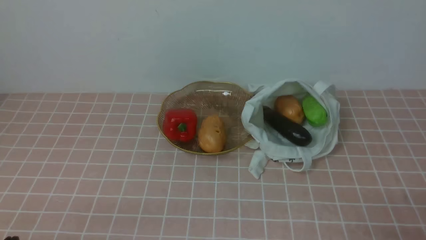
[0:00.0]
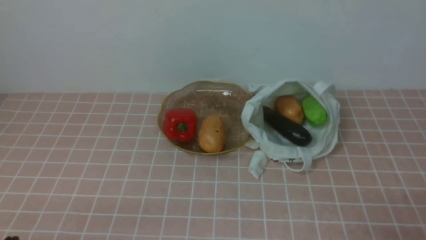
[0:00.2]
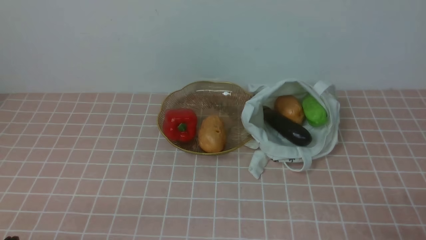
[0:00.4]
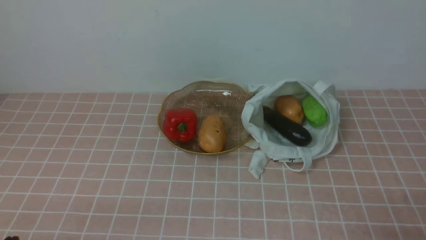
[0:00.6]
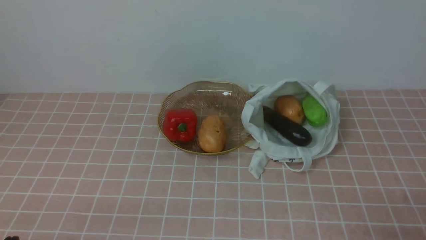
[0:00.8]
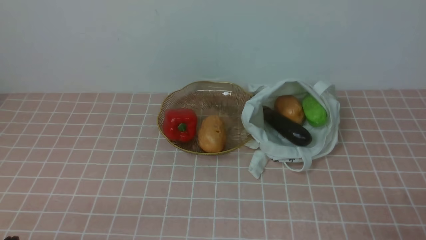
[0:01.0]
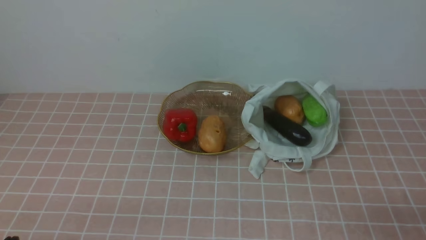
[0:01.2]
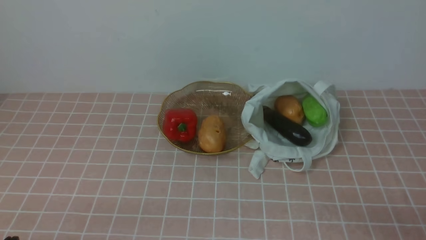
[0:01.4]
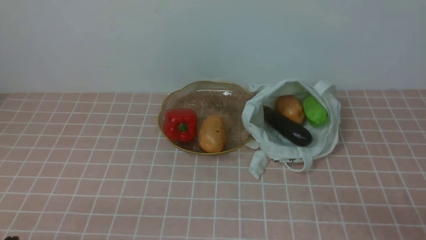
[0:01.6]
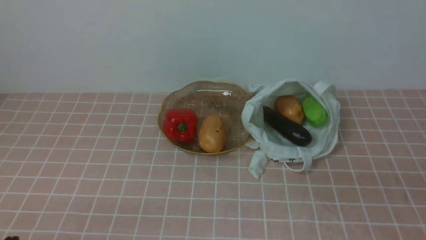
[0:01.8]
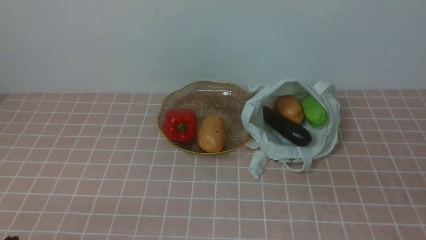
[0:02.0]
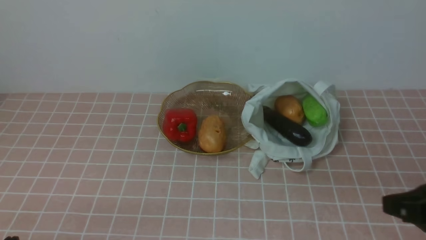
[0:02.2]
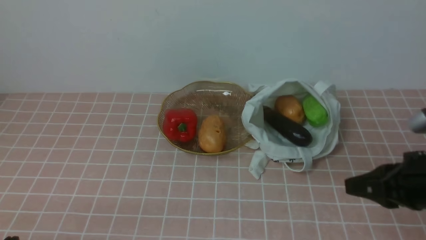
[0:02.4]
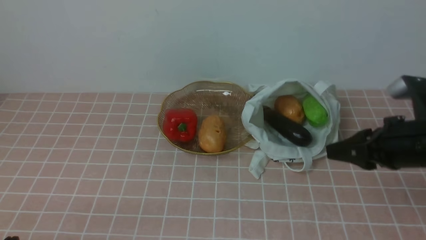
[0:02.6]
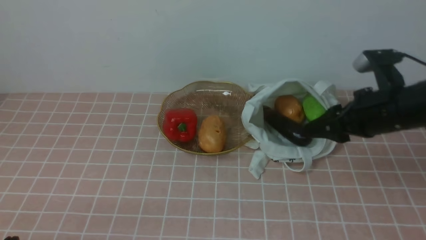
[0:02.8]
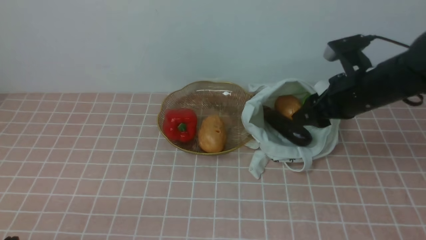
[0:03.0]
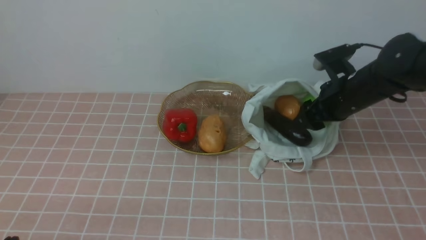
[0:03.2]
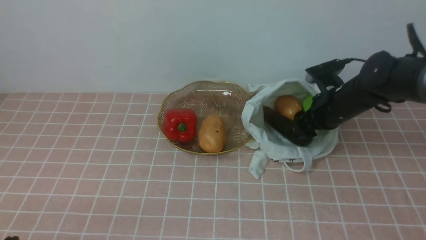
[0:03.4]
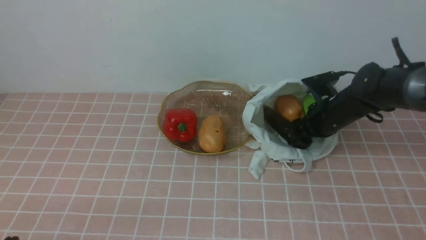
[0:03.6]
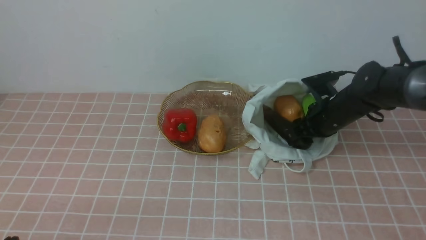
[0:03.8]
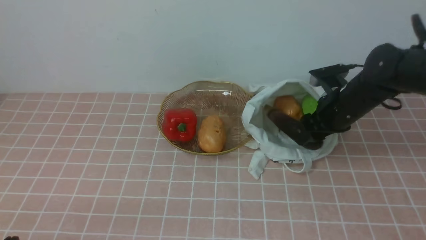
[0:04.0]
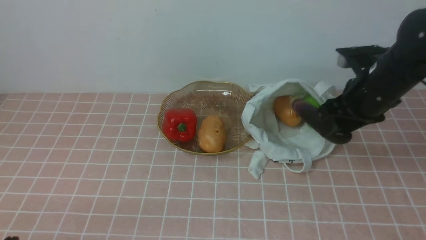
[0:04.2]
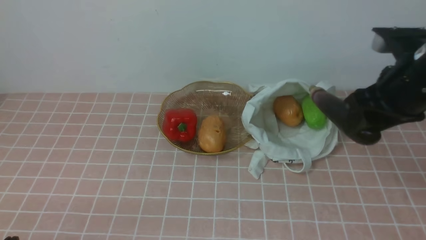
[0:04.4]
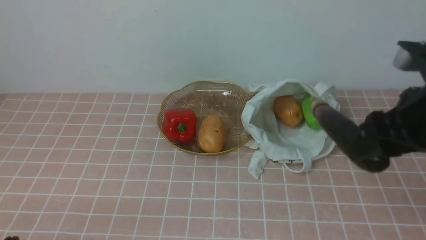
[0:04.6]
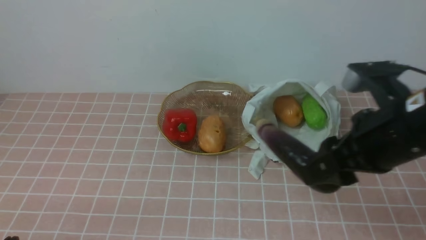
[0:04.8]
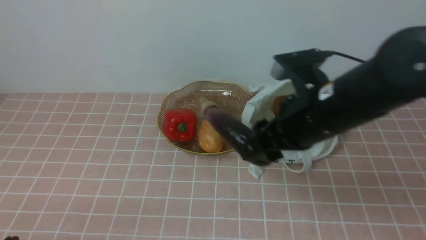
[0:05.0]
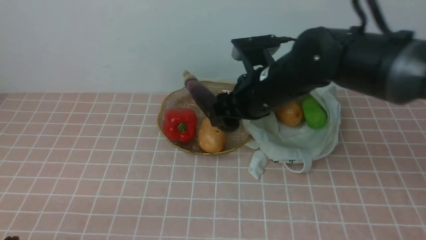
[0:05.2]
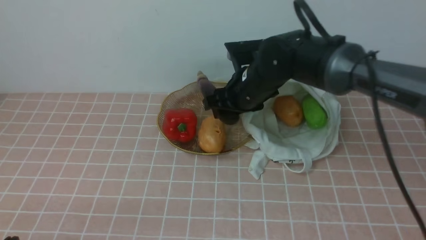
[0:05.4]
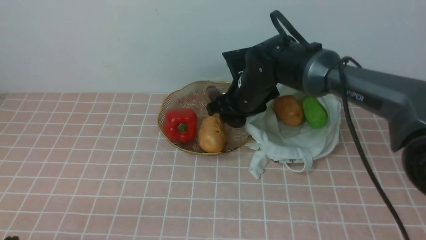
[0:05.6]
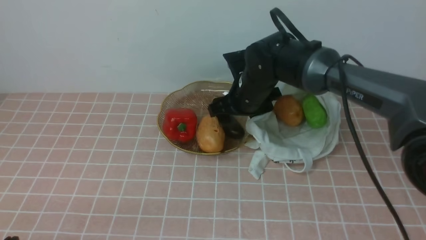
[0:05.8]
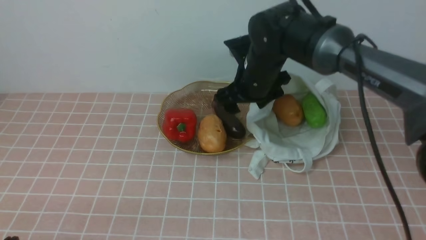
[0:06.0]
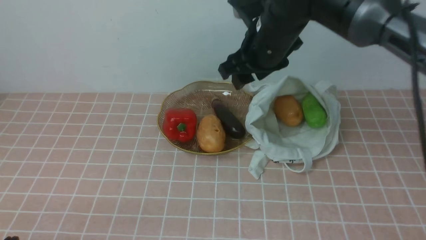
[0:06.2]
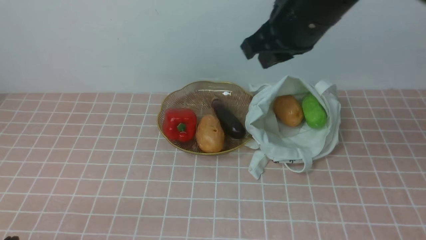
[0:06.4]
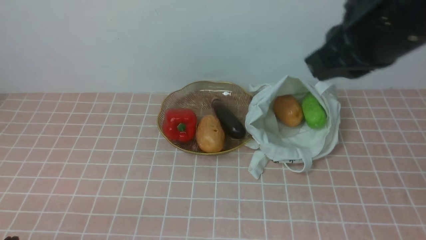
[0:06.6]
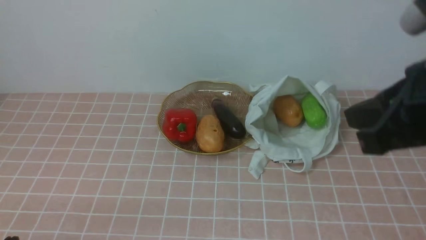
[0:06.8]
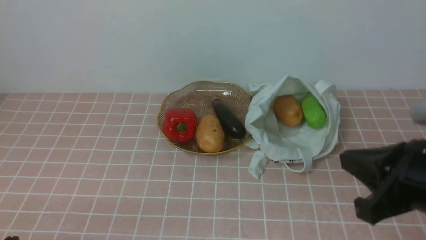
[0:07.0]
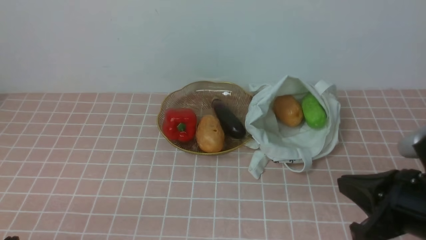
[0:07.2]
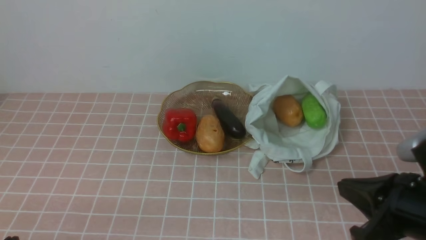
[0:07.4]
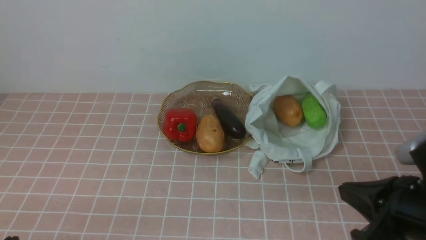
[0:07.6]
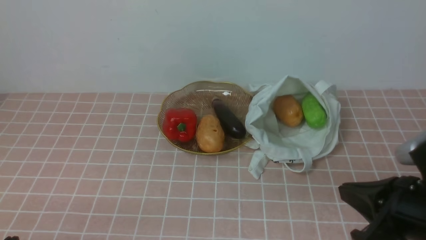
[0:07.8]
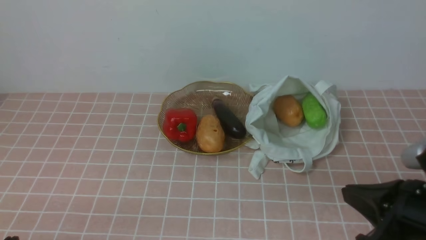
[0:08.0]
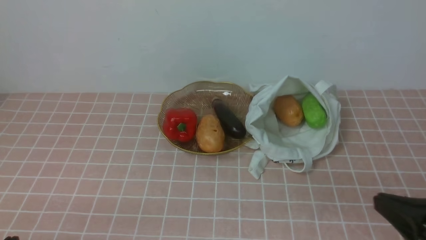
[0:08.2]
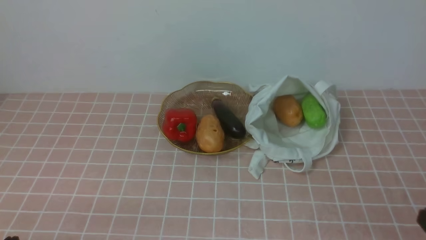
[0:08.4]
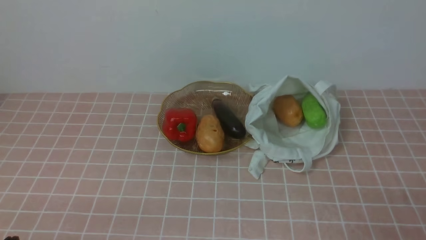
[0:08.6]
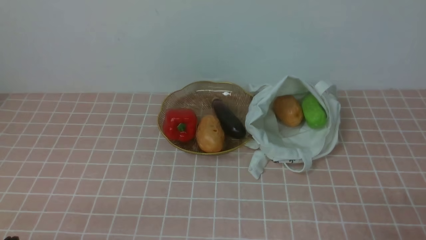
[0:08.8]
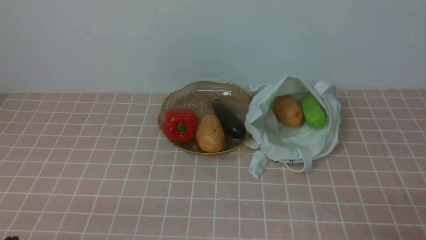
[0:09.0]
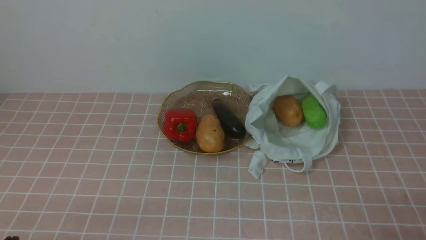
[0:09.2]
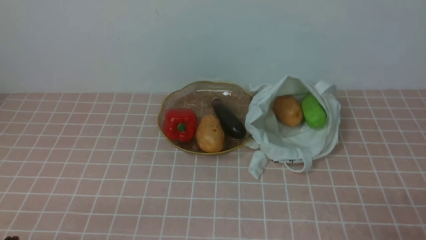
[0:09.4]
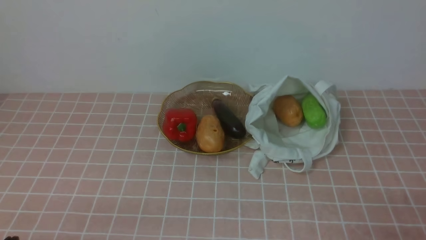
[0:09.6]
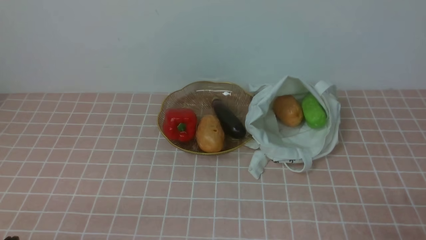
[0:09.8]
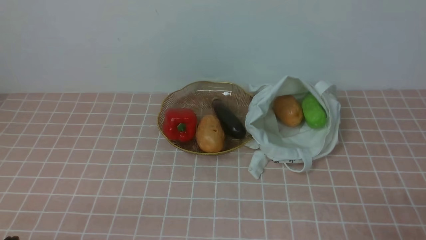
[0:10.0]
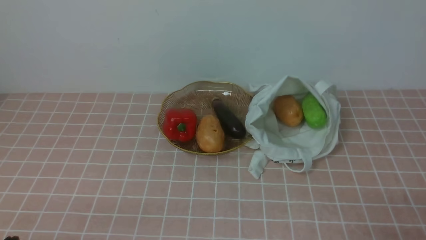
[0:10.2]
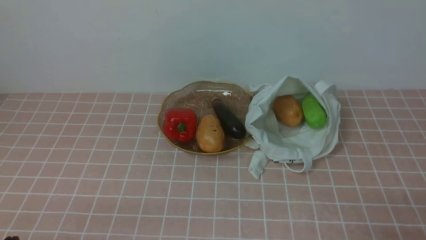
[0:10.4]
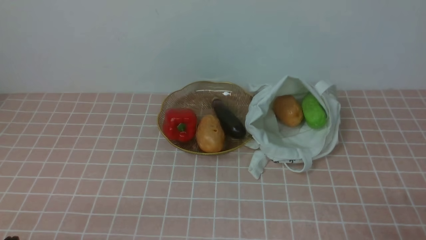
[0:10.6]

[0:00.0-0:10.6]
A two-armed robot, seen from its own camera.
Task of the whole recording: take vegetables from bag on pink coffee tablecloth place on plate.
Step, 0:00.0 to 0:03.6: Grasp the eggplant with right gripper.
Step, 0:03.8 to 0:06.0: Place the eggplant on the plate with right gripper.
0:01.6 to 0:03.0: The right gripper shifts approximately 30 cm forward, and opens up.
0:03.0 to 0:04.6: The right gripper shifts approximately 15 cm backward and upward.
0:04.6 to 0:06.0: The right gripper travels forward and to the left by about 20 cm.
0:06.0 to 0:07.6: The right gripper travels backward and to the right by roughly 30 cm, and closes up.
0:07.6 to 0:09.0: The right gripper goes approximately 15 cm backward, to the right and downward.
0:09.0 to 0:10.6: Both grippers stay put.
